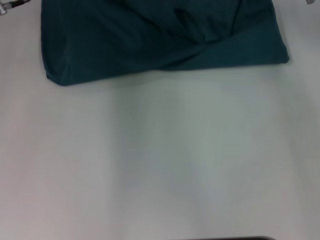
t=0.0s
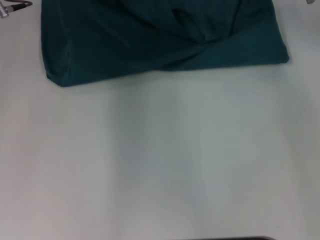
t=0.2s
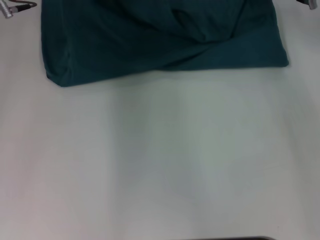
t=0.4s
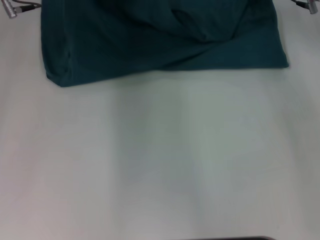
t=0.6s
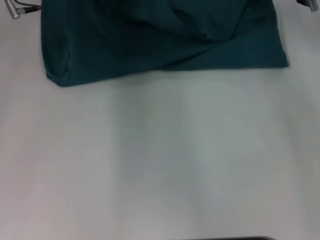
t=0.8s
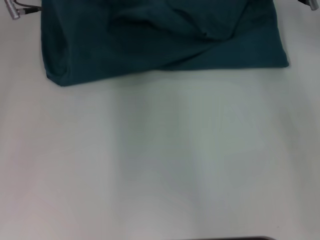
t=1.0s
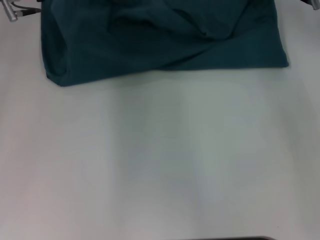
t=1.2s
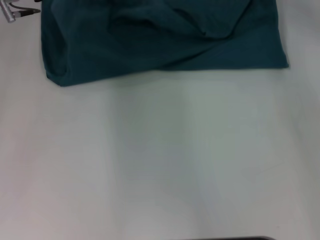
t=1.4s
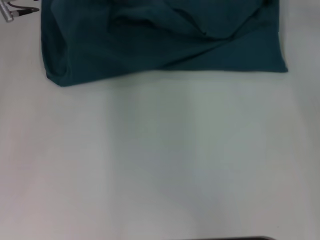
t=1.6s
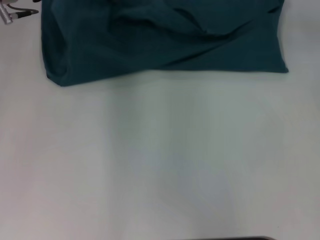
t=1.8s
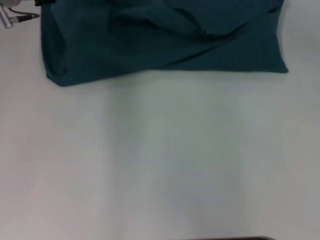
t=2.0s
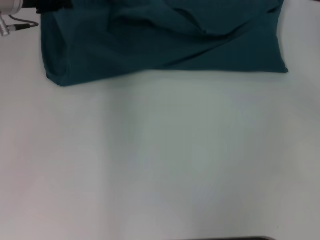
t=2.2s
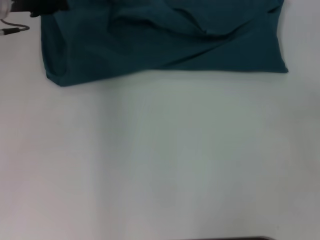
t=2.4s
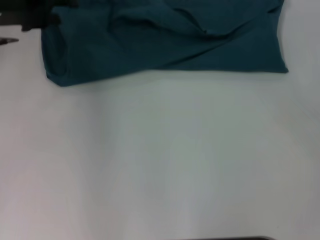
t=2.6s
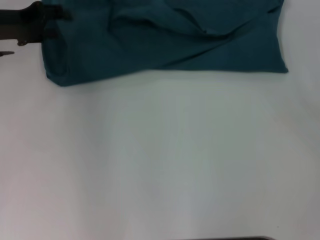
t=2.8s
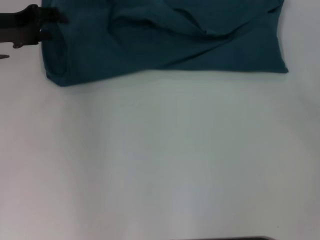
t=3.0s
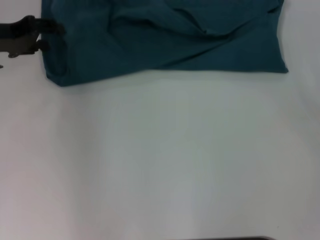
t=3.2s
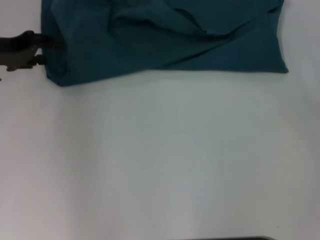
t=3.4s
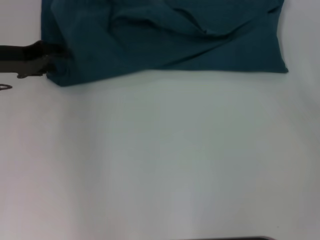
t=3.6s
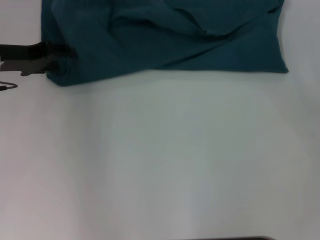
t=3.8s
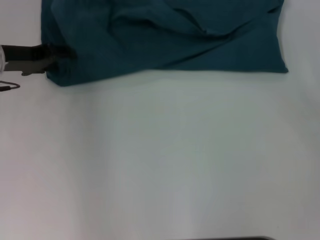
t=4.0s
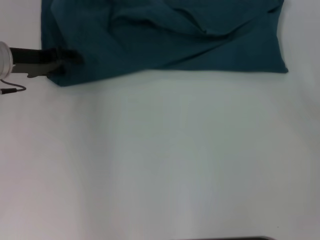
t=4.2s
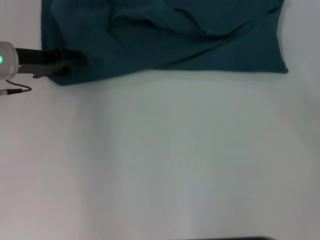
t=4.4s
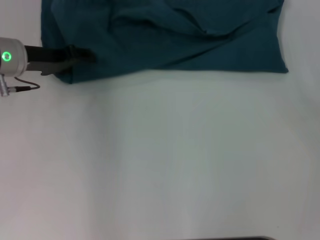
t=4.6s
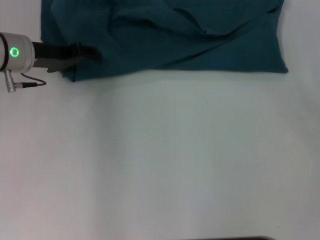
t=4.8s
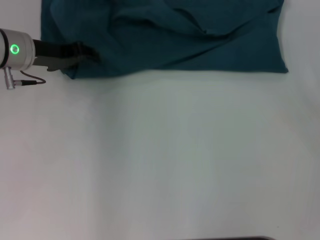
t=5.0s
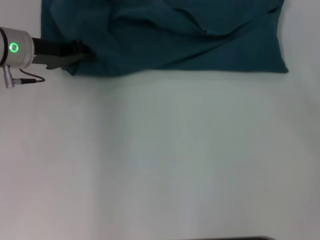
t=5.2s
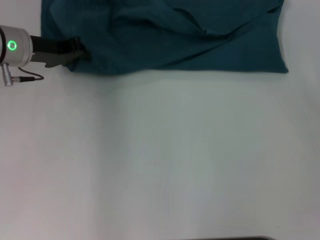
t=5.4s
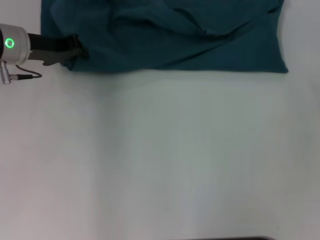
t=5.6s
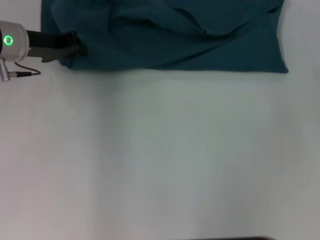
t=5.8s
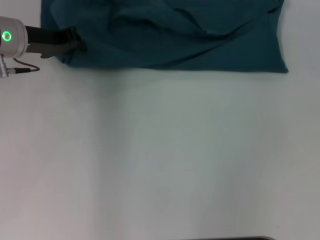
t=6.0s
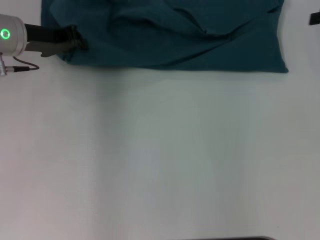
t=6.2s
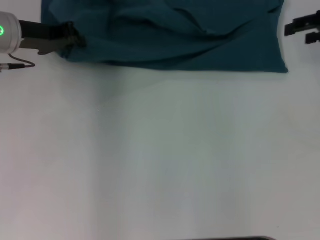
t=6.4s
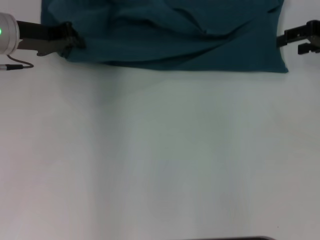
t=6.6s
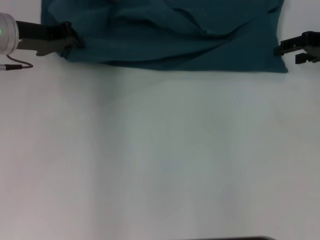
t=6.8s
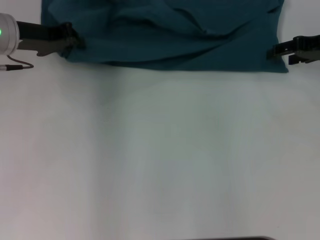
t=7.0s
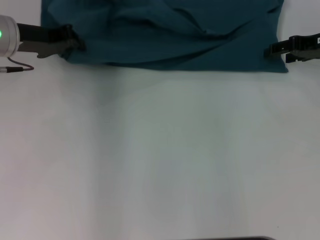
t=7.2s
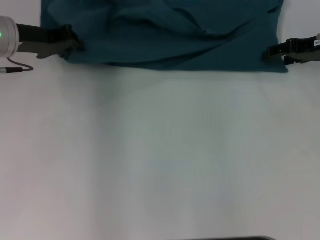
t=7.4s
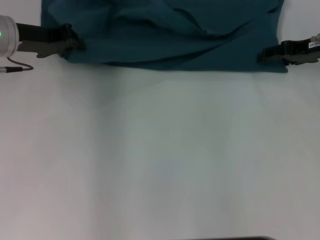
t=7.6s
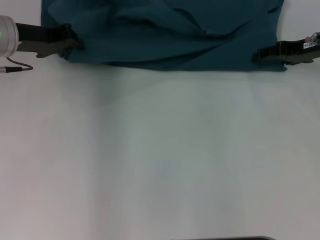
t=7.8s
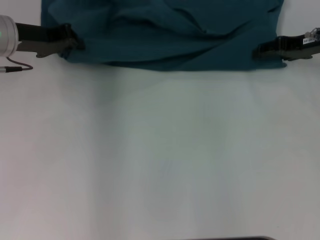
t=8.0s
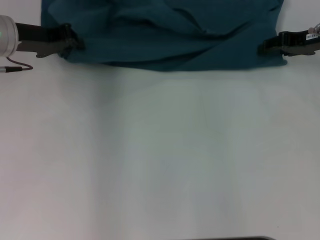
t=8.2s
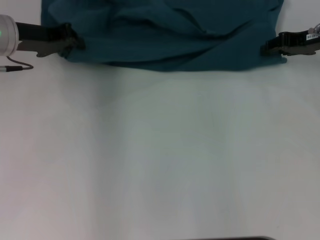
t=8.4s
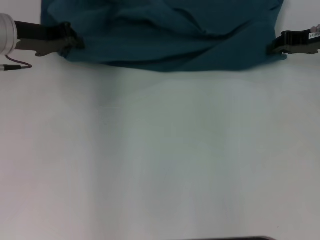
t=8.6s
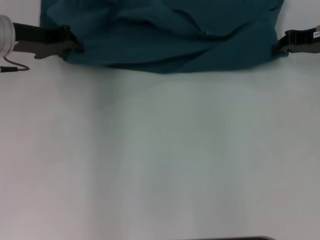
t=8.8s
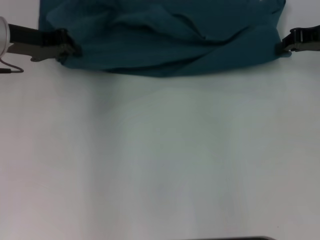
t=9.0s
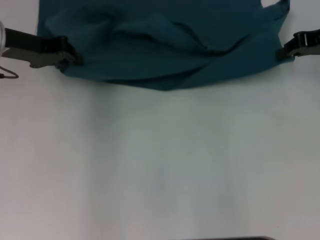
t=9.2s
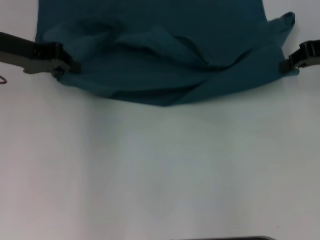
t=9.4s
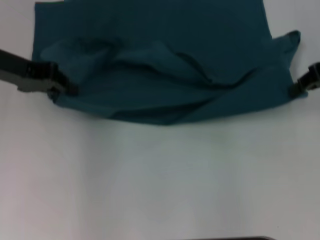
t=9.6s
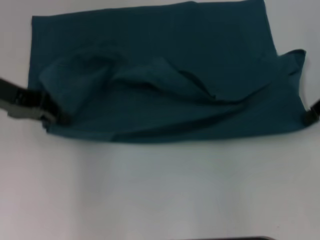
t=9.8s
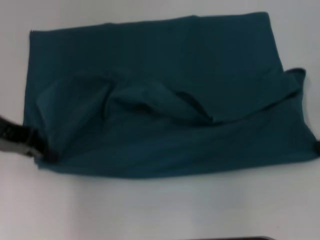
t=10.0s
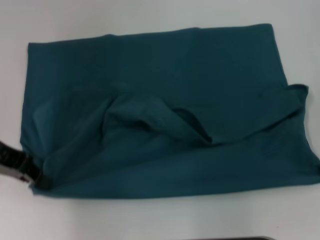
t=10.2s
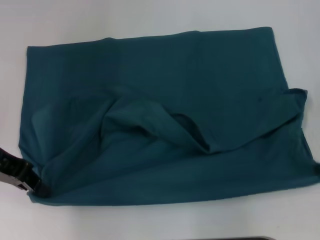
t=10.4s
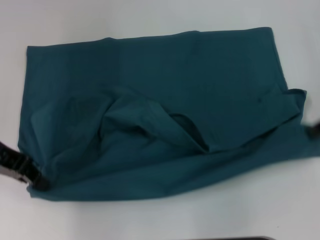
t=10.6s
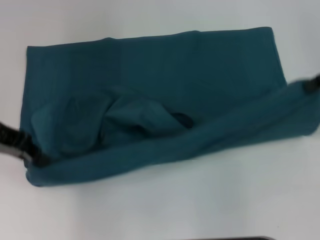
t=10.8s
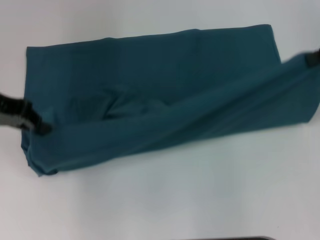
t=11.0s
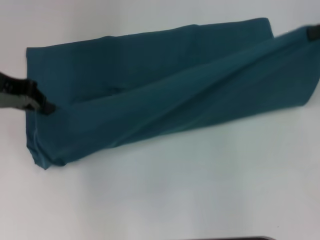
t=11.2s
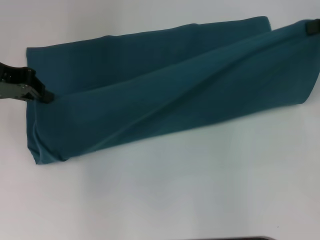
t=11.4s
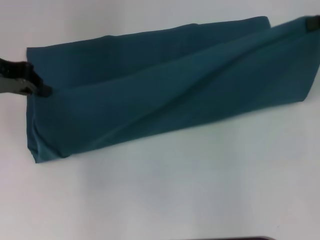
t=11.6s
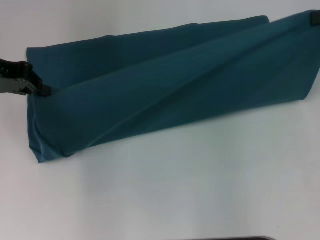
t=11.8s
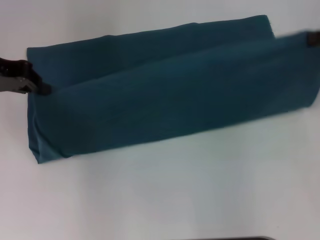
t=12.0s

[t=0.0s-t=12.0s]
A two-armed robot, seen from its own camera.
Step, t=0.0s to t=10.2s: Pull the clothes with your left hand.
Step, t=0.0s to t=10.2s: Pull the clothes with your right hand.
t=0.0s to t=1.6s: The left gripper opens its fingers, while the right gripper moves some 5 cm, and opens up.
t=1.6s to t=3.0s: The right gripper travels backward and to the right by approximately 25 cm; the left gripper heads to the left and backward, covering about 10 cm.
t=3.0s to t=4.4s: The left gripper moves about 5 cm.
t=4.4s to t=6.0s: The left gripper closes.
t=6.0s to t=7.6s: The right gripper heads to the left and downward, covering about 10 cm.
t=7.6s to t=9.0s: The right gripper closes its fingers.
t=9.0s to t=10.4s: The grippers both shift backward by approximately 10 cm.
t=10.4s to t=12.0s: The left gripper heads forward, covering about 5 cm, while the right gripper heads upward, covering some 5 cm.

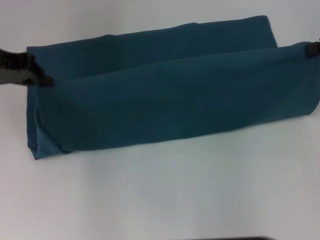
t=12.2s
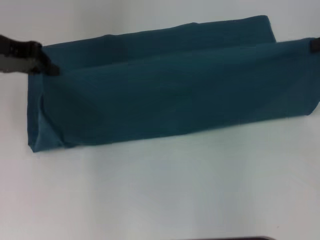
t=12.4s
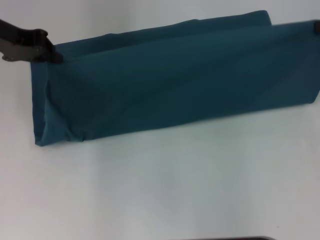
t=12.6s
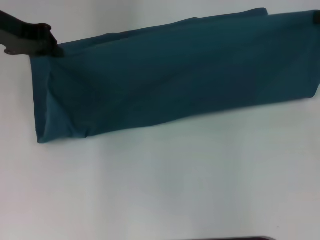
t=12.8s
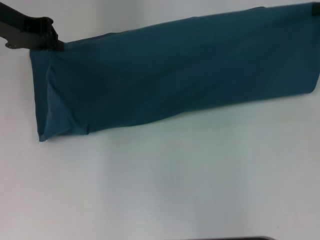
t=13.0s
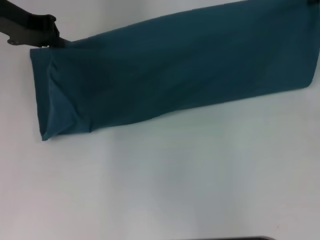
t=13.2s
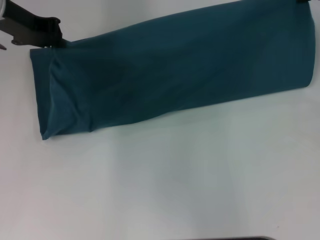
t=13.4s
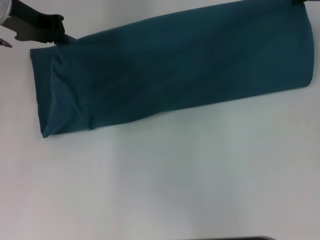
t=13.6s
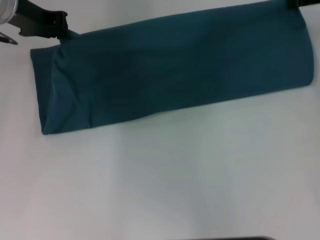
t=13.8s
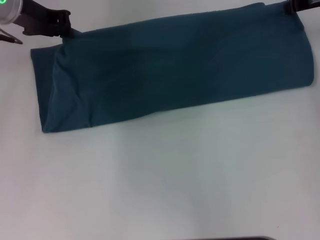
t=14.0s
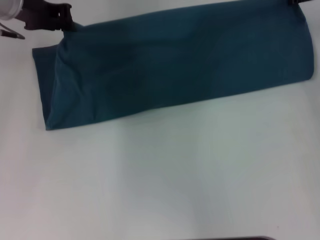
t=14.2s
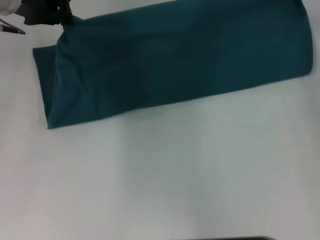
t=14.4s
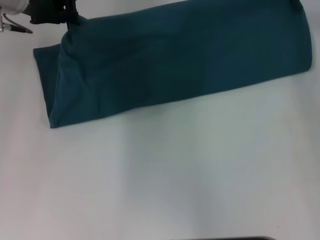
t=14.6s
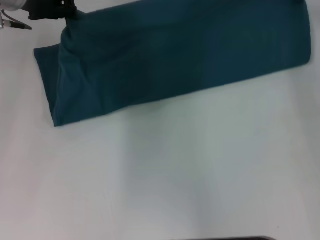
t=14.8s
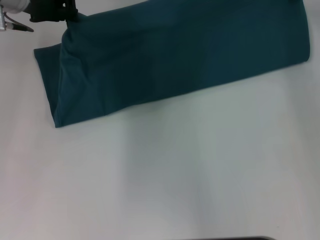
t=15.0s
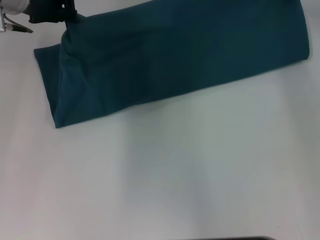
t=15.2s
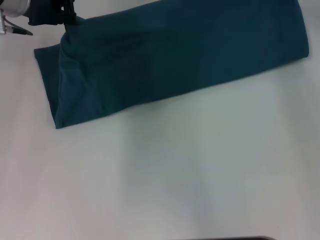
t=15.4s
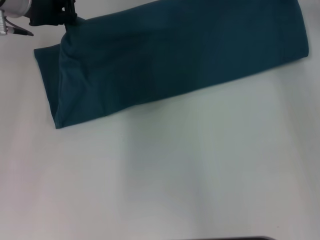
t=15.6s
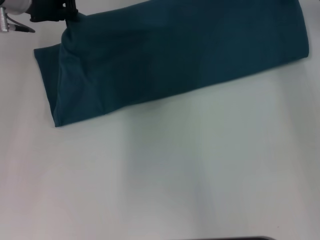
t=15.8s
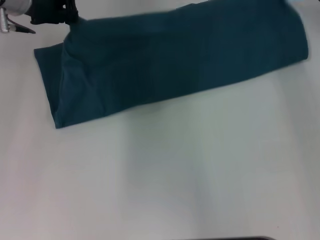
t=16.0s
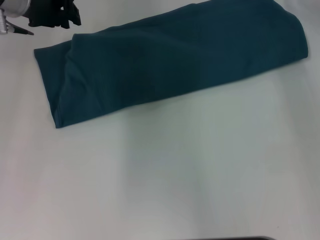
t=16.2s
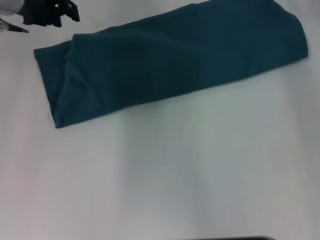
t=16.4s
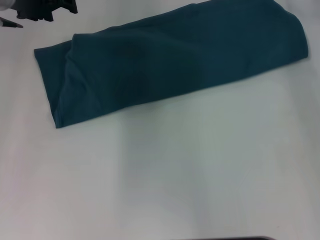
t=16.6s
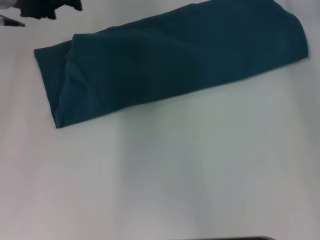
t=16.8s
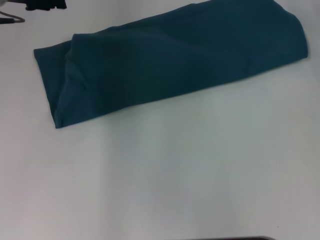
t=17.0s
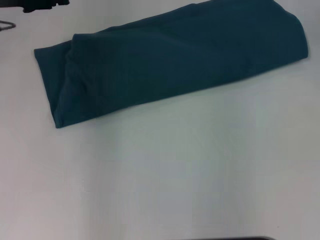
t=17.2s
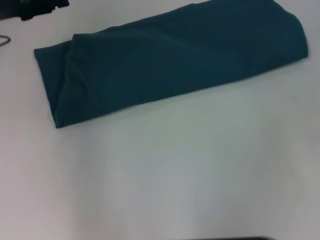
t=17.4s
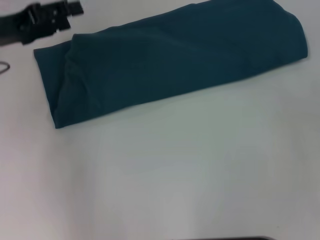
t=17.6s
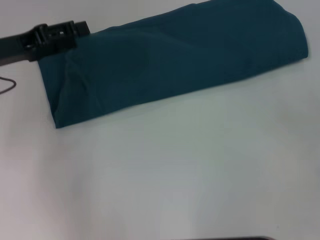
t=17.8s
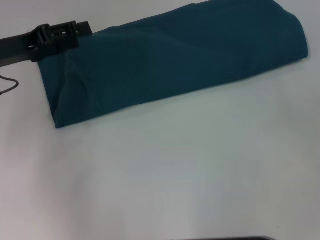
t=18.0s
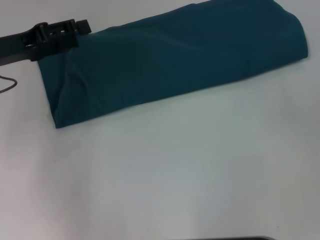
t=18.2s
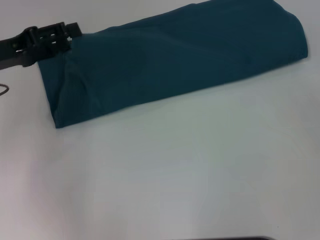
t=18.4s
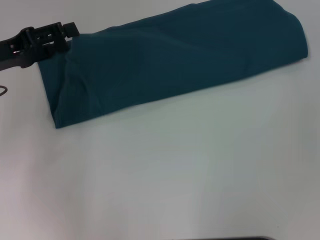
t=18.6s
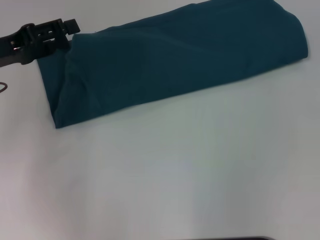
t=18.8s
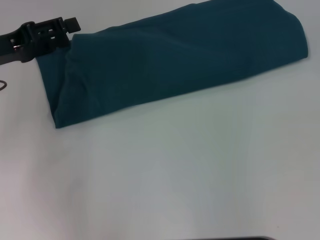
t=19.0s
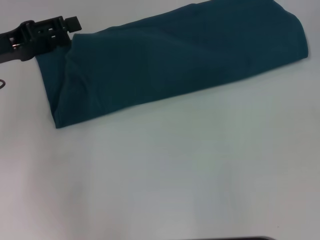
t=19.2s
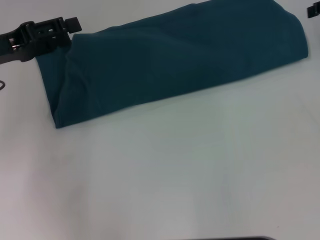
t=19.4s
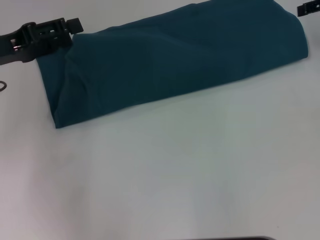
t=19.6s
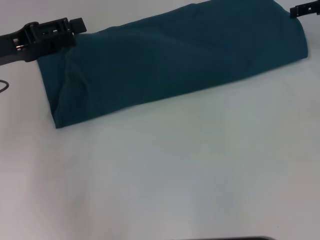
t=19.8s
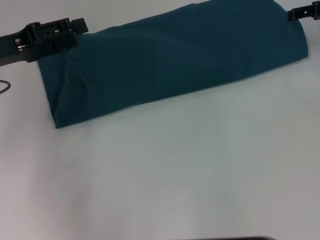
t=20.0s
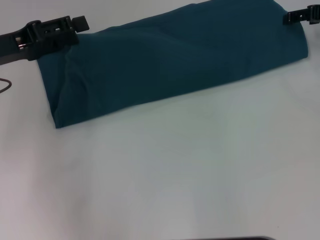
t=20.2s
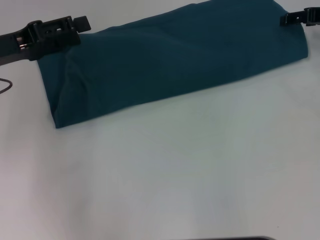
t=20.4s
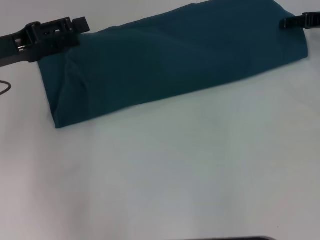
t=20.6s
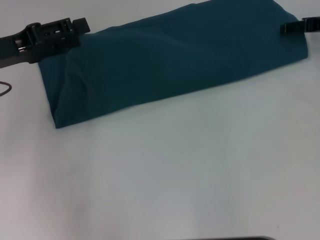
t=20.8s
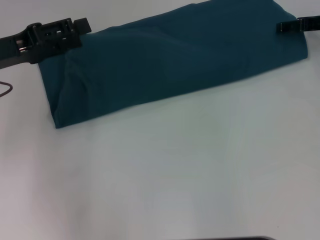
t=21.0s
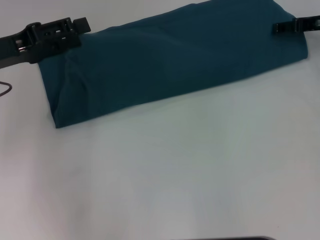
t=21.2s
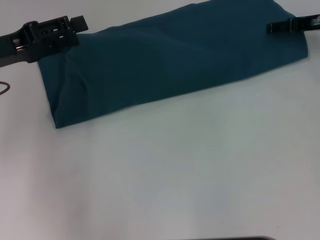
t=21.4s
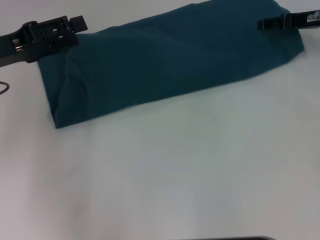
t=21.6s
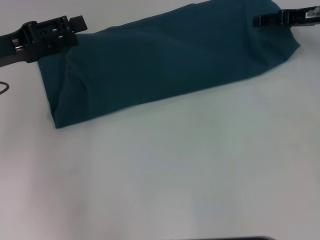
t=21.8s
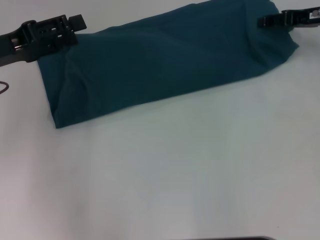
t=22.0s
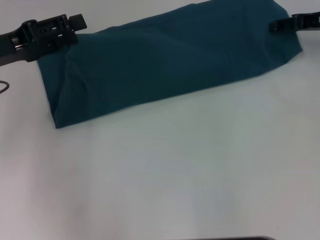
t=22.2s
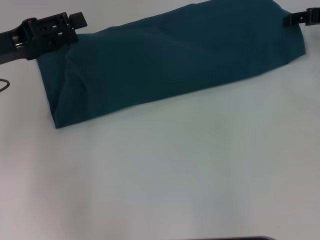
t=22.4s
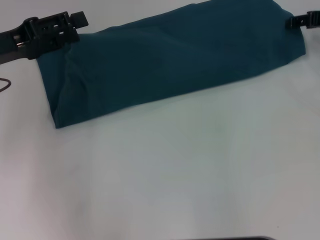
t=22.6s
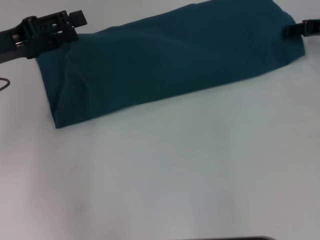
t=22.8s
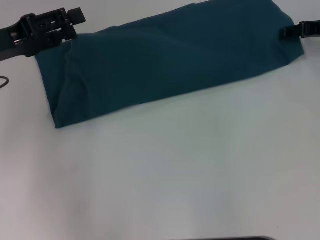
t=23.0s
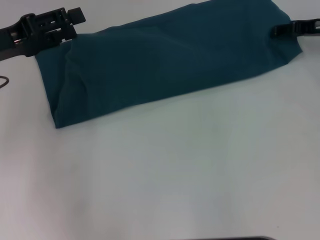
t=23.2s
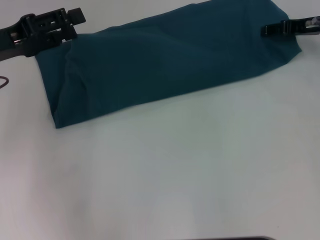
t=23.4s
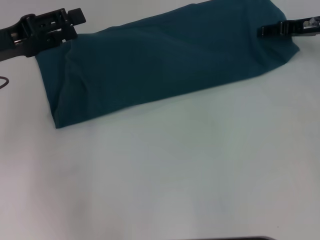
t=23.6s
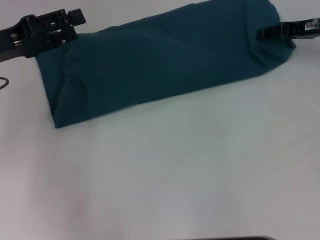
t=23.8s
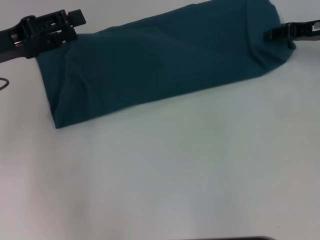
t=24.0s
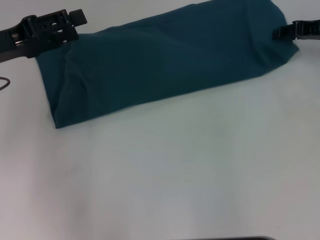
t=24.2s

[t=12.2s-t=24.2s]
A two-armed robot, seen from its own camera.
Step, t=12.2s to t=16.0s: Fold the clothes to the right.
t=12.2s to t=13.8s: The left gripper heads to the right and forward, covering some 10 cm. Meanwhile the right gripper is displaced forward and to the left by roughly 10 cm.
t=13.8s to t=15.2s: The right gripper moves roughly 5 cm.
t=15.2s to t=16.6s: The left gripper opens. Meanwhile the right gripper opens up.
t=16.6s to t=18.2s: The right gripper heads backward and to the right, covering roughly 25 cm, and opens up; the left gripper moves backward, downward and to the left, approximately 15 cm.
t=19.8s to t=21.2s: The right gripper is displaced downward by approximately 5 cm.
t=21.2s to t=24.2s: There are only small adjustments of the grippers.
